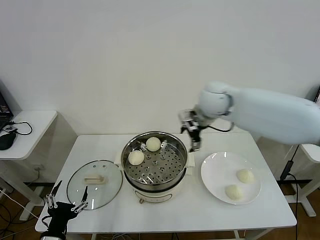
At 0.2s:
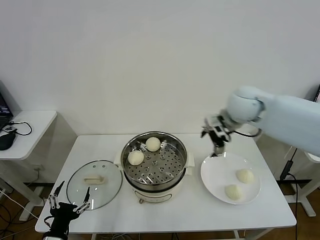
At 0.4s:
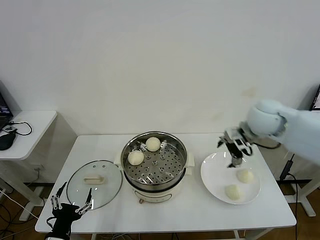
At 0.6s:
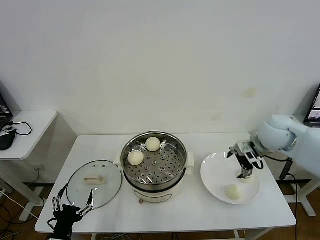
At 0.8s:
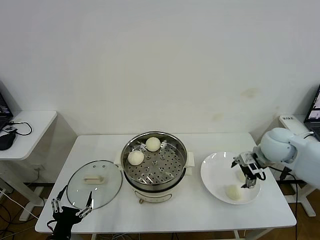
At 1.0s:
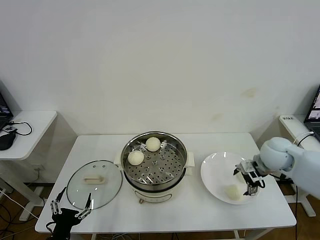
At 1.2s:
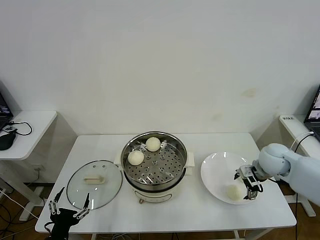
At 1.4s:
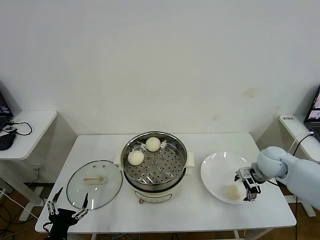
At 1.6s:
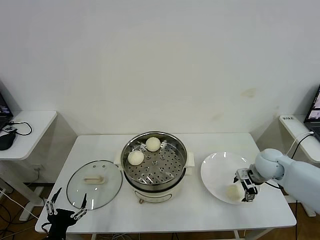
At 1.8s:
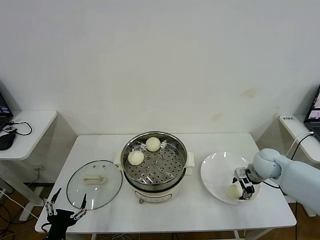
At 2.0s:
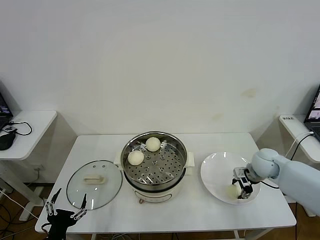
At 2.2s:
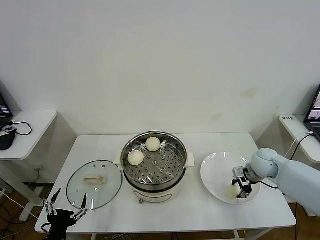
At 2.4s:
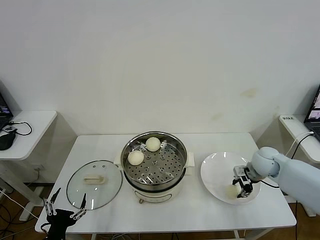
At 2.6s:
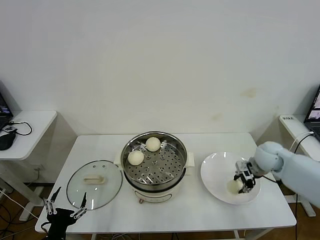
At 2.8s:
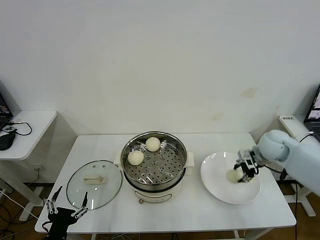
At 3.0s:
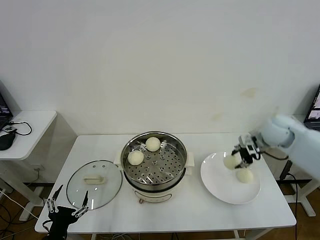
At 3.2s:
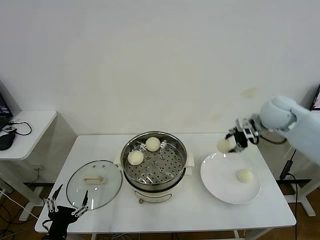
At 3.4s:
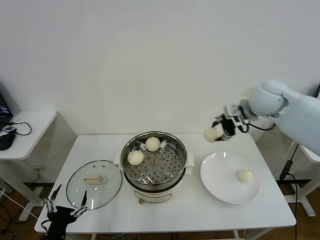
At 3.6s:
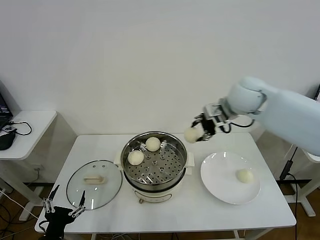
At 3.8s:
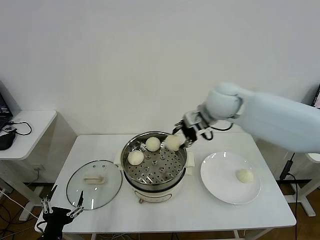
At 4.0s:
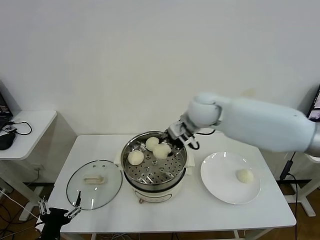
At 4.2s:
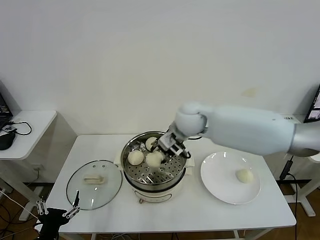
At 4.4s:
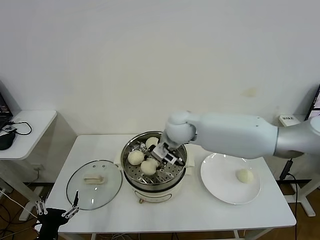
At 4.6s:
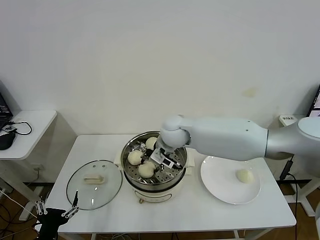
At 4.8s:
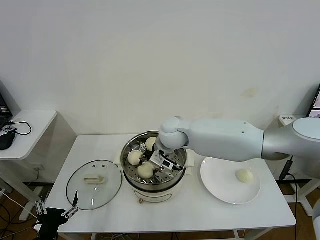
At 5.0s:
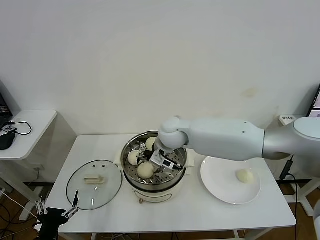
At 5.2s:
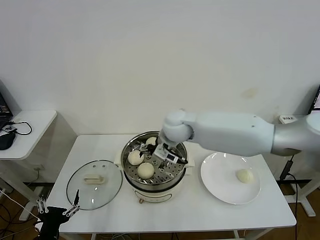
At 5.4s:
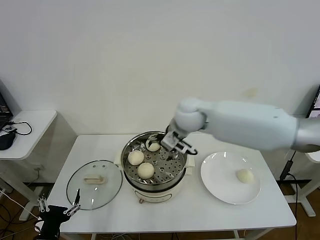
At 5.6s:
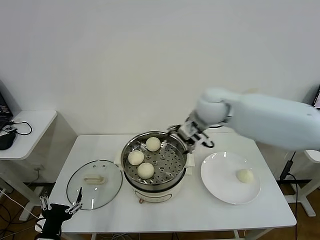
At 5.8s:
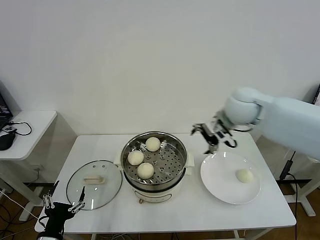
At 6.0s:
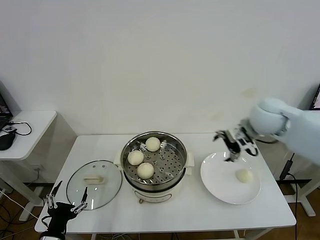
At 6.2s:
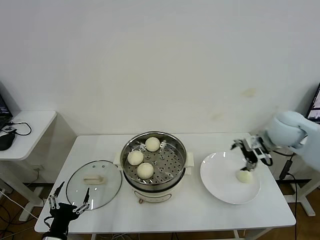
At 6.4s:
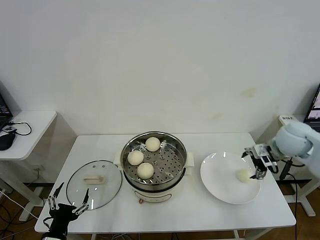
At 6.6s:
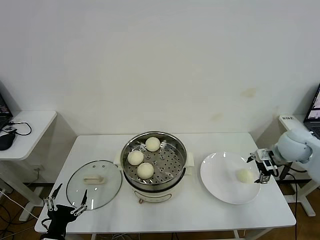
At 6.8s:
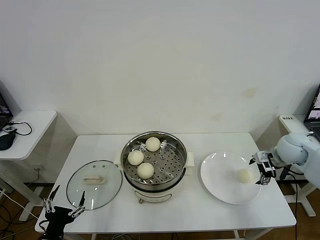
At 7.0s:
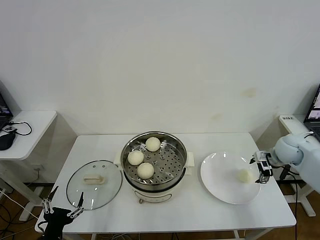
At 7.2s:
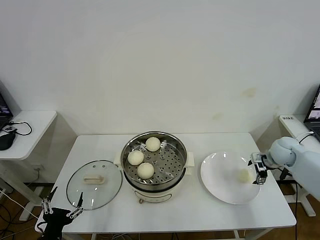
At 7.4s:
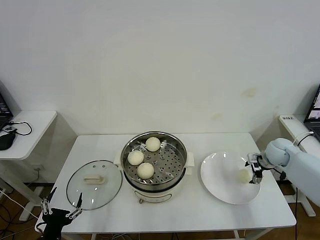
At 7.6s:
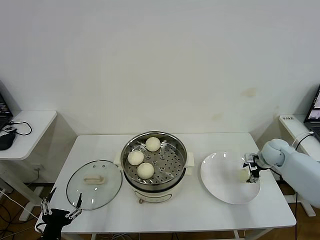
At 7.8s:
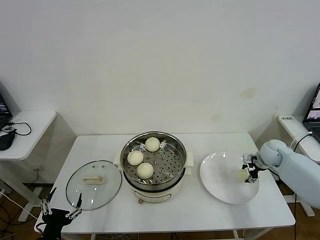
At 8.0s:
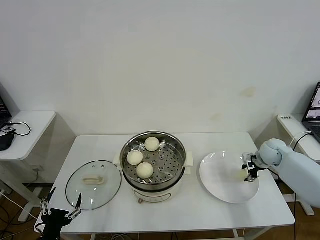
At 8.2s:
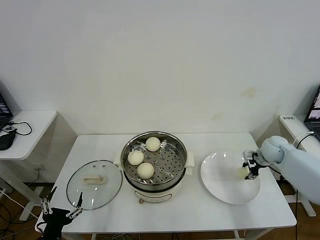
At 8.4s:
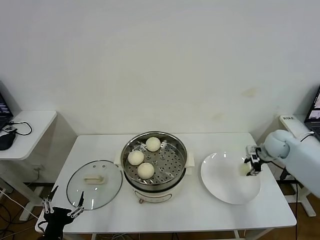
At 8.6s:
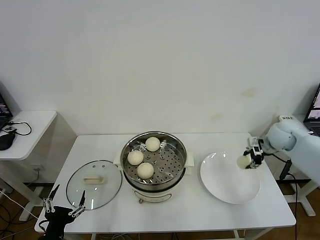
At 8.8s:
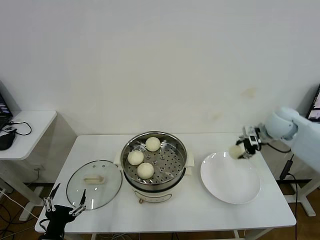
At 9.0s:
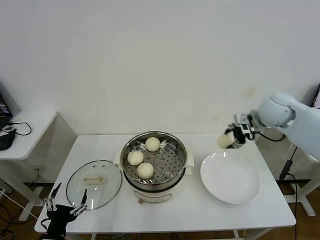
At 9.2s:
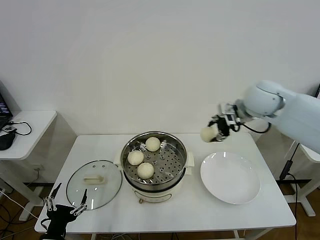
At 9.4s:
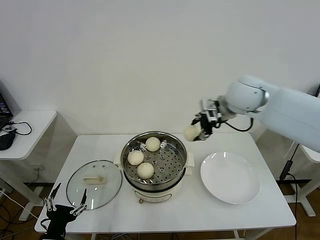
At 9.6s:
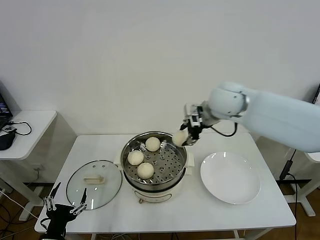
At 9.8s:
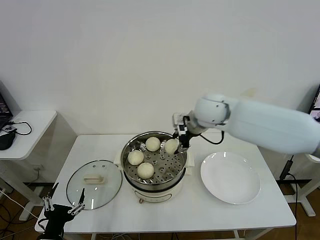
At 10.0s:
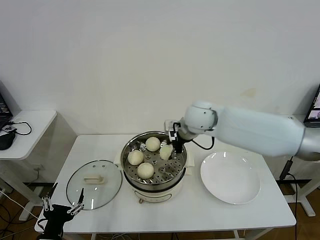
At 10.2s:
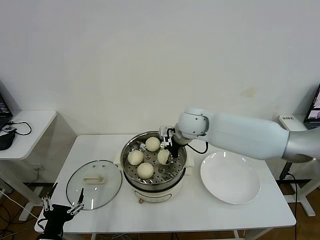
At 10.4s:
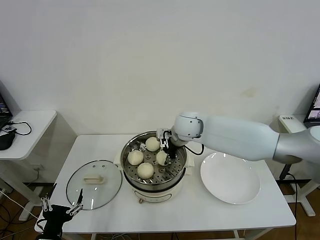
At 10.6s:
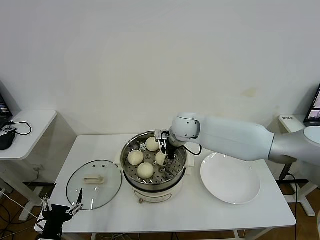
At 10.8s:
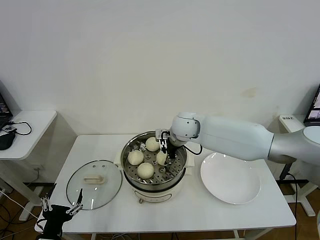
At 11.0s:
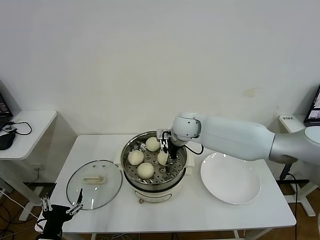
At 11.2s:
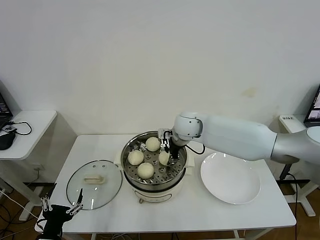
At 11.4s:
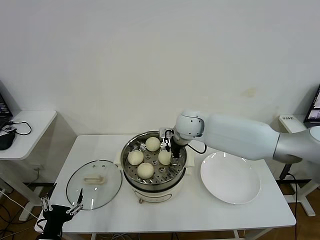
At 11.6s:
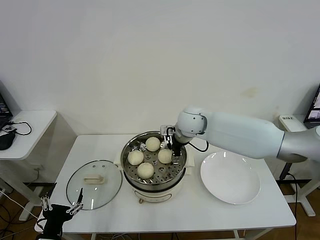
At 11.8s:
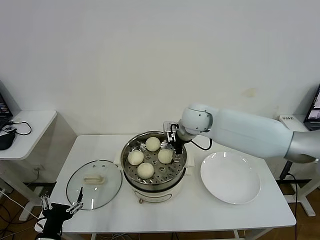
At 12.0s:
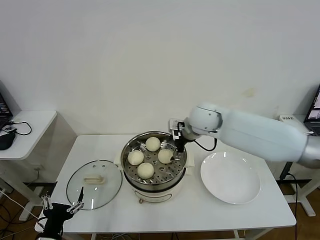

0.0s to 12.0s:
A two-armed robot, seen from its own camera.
Task of the whole recording: take steamed baozi put them in steamer then cover it.
Step, 0.0s to 2.2s: Grasp the baozi in the plate with right gripper.
Step, 2.4s to 5.0s: Place the baozi on the steamer with right gripper.
Step, 5.2s to 8.0s: Grasp the baozi in the plate with right gripper.
Step, 8.2s to 11.6s: Place the baozi on the steamer with right gripper.
0.0s to 1.6s: The right gripper shifts roughly 30 cm downward and to the right.
1.6s to 3.0s: The right gripper heads upward, covering approximately 15 cm, and closes its fingers.
3.0s to 4.4s: The right gripper is displaced to the left by roughly 30 cm.
4.4s to 6.0s: The right gripper moves to the right, some 25 cm, and opens its fingers.
6.0s to 7.6s: The right gripper shifts roughly 25 cm downward and to the right, and closes its fingers.
7.6s to 9.0s: The right gripper heads upward and to the left, covering about 25 cm, and closes.
9.0s to 10.4s: The right gripper goes roughly 25 cm to the left.
10.4s to 12.0s: The right gripper shifts by about 5 cm, and opens.

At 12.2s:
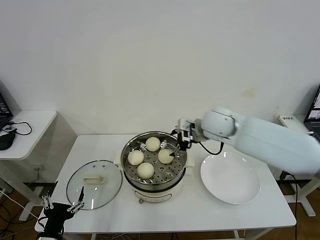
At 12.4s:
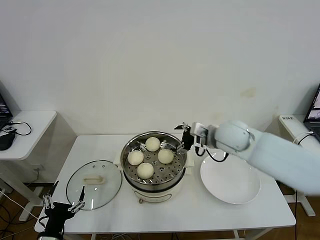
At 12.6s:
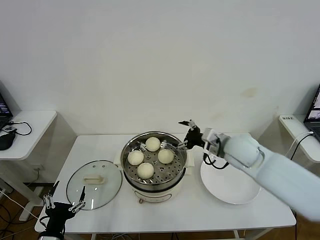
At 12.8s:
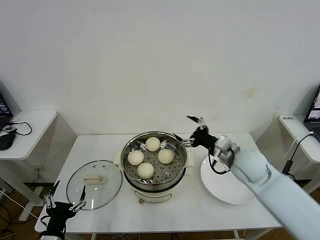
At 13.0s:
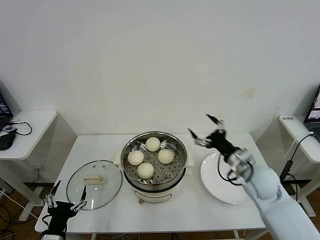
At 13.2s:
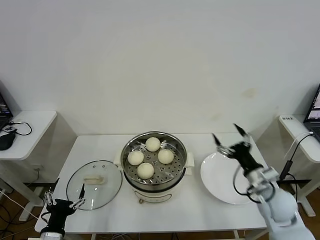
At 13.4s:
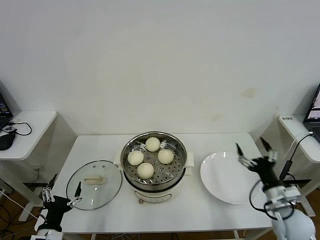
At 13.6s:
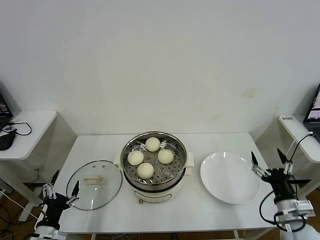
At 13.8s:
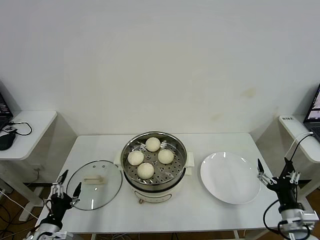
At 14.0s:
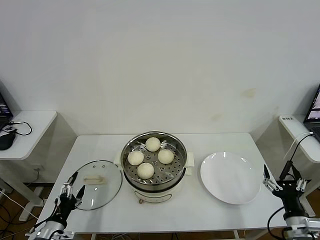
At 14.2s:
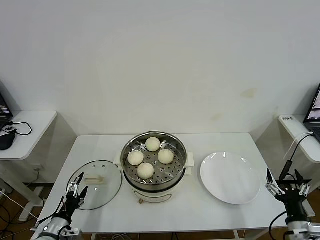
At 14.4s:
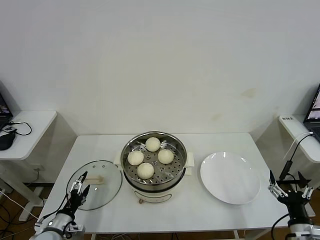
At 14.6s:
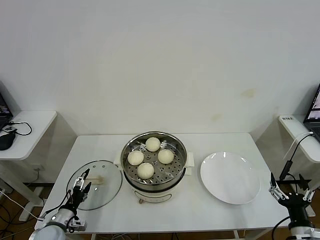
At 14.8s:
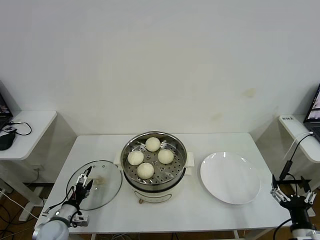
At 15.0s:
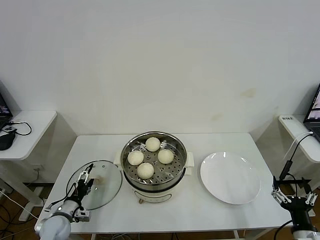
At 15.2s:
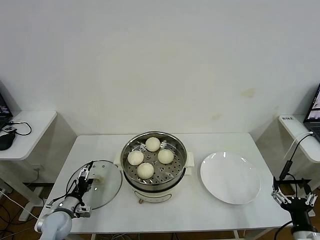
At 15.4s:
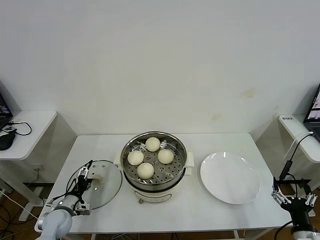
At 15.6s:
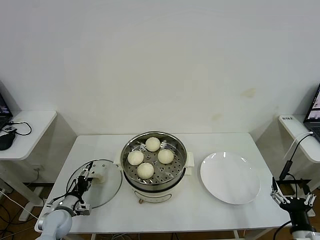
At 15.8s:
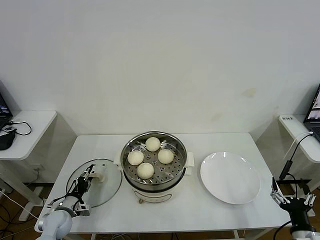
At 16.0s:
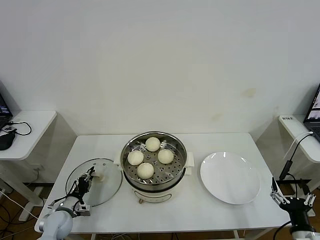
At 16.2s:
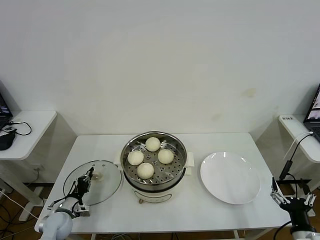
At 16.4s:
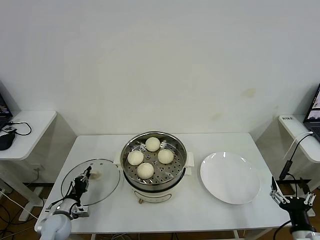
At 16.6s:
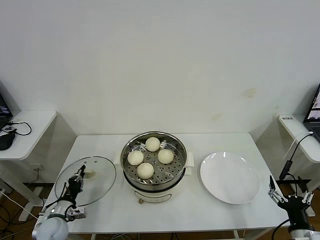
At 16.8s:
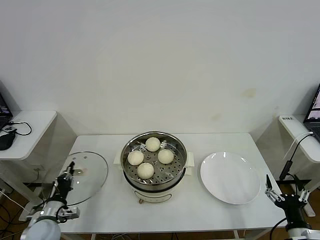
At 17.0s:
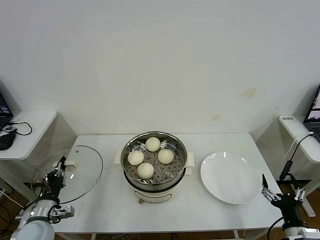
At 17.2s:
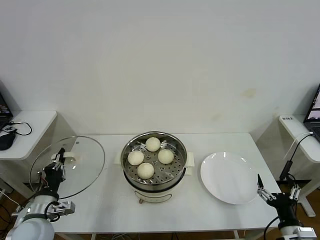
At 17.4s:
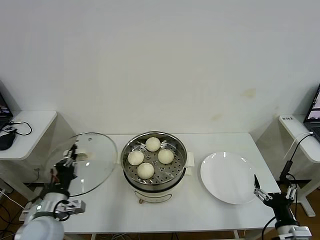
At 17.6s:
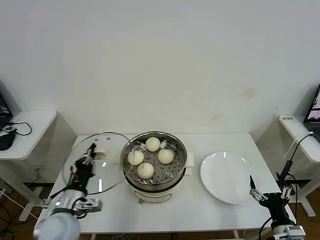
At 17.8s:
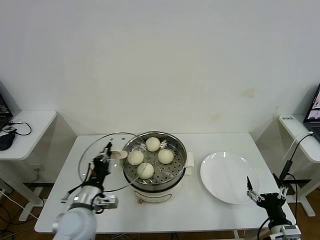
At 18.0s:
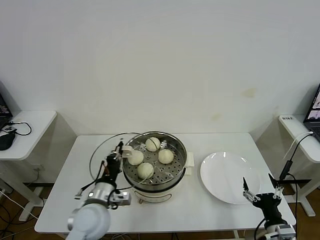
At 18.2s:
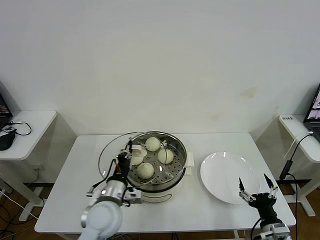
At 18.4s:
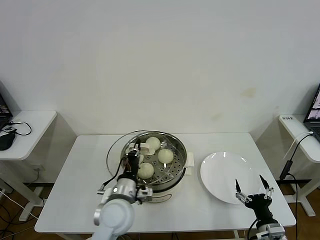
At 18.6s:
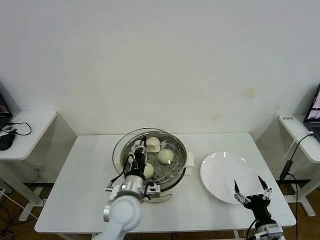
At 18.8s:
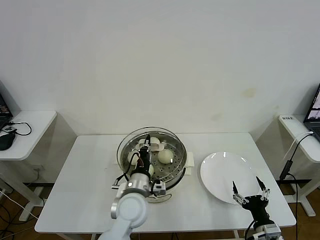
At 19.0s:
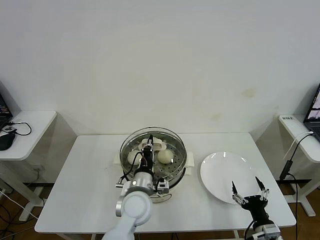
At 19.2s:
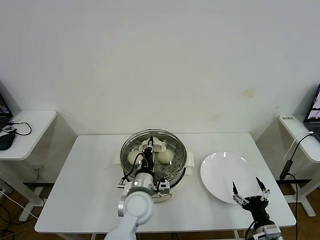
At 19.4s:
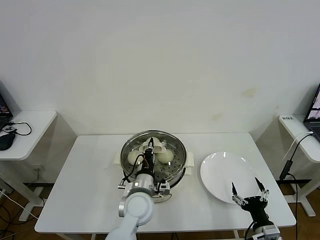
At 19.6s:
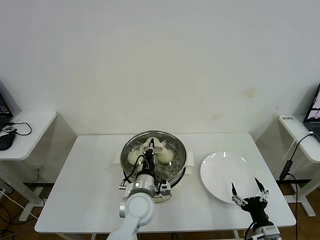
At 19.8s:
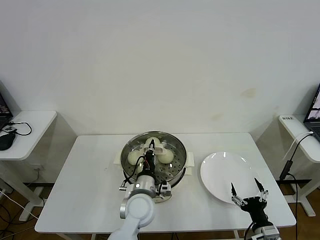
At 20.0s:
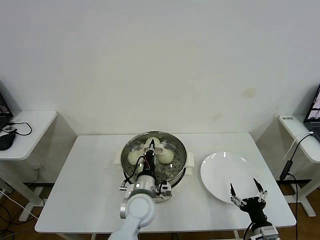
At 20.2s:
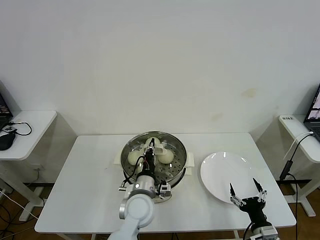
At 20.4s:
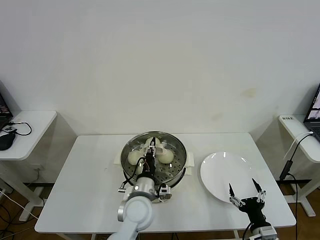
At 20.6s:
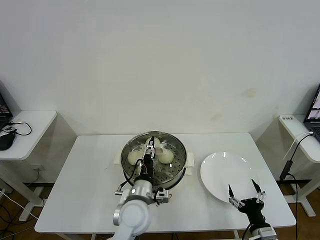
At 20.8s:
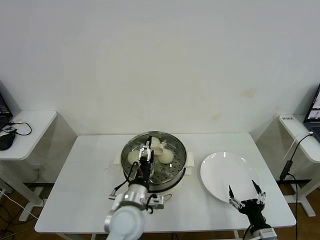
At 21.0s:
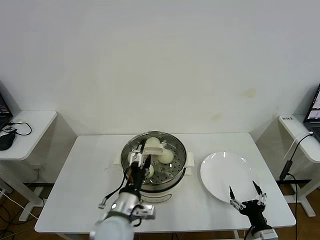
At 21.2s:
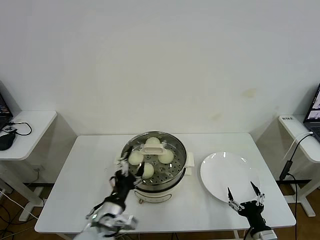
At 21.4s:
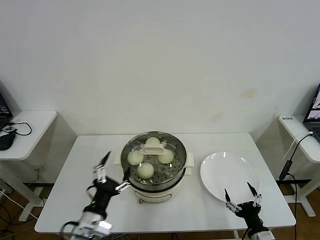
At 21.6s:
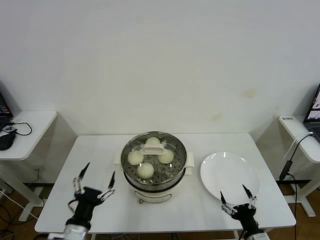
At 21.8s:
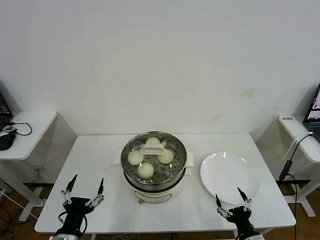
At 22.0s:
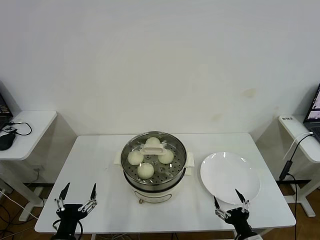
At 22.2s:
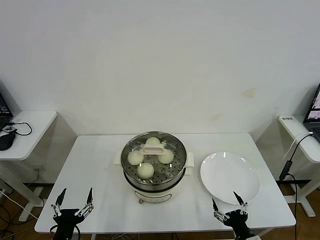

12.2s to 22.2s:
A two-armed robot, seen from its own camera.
Task of the whole recording: take steamed baozi put them in steamer then cover it.
Step, 12.2s to 16.2s: Grasp the pot lid with left gripper.
Step, 16.6s to 20.4s: Place the pot lid on the steamer with left gripper.
12.2s to 13.6s: The right gripper moves backward, to the right and downward, some 40 cm; the left gripper shifts by roughly 5 cm.
13.6s to 15.0s: The left gripper moves forward and downward, about 15 cm; the right gripper moves backward, roughly 10 cm.
15.0s to 16.4s: The left gripper closes.
16.4s to 18.0s: The right gripper changes place by roughly 5 cm. The left gripper travels to the right and upward by some 25 cm.
18.0s to 19.4s: The left gripper travels to the right by roughly 15 cm.
19.4s to 20.8s: The left gripper ends up roughly 5 cm from where it was, and opens.
20.8s to 22.2s: The left gripper moves to the left and backward, about 25 cm.
